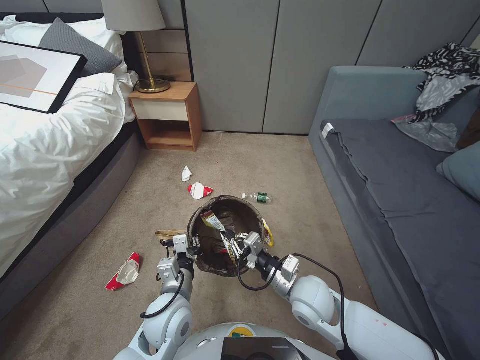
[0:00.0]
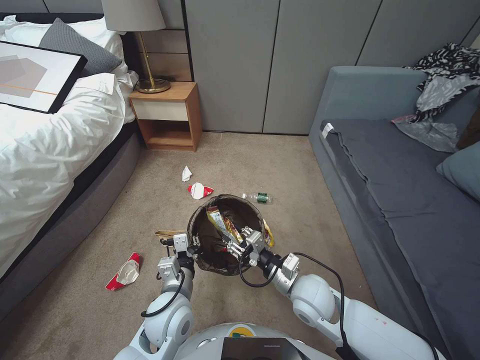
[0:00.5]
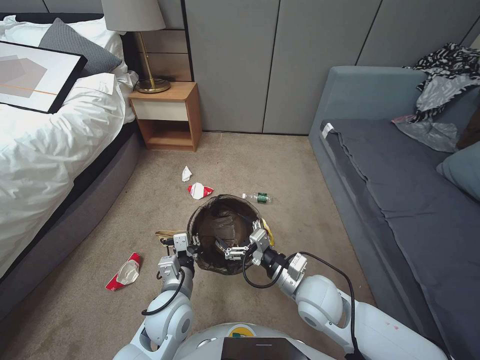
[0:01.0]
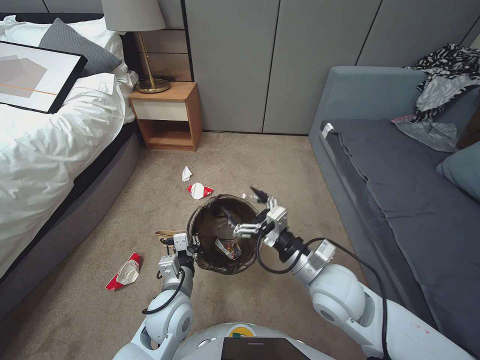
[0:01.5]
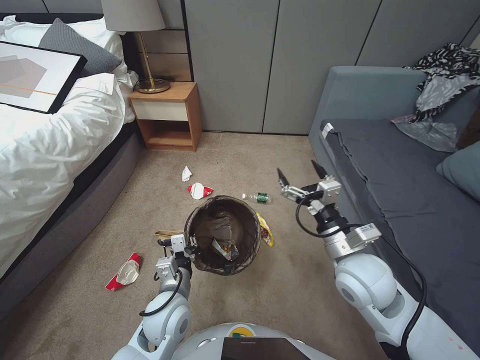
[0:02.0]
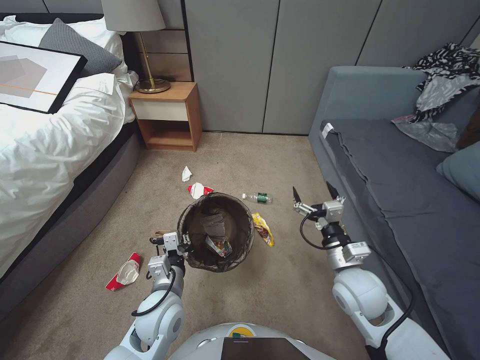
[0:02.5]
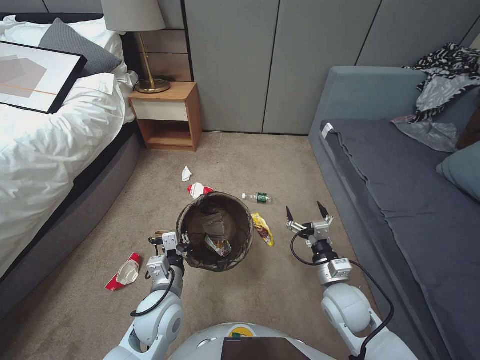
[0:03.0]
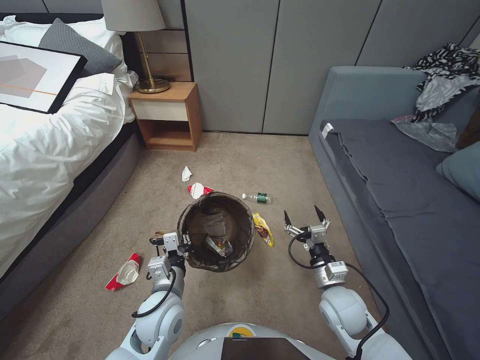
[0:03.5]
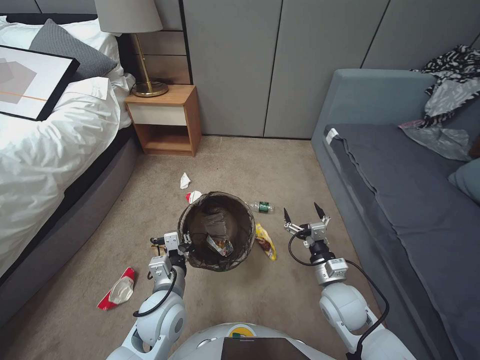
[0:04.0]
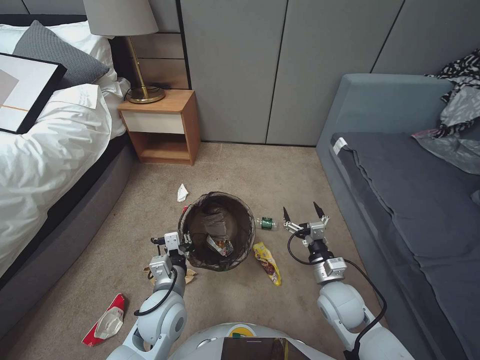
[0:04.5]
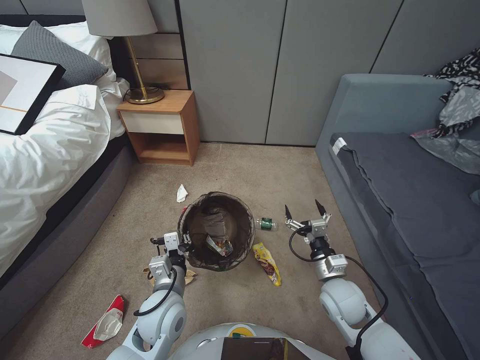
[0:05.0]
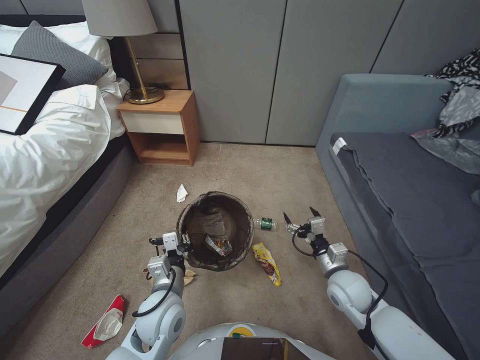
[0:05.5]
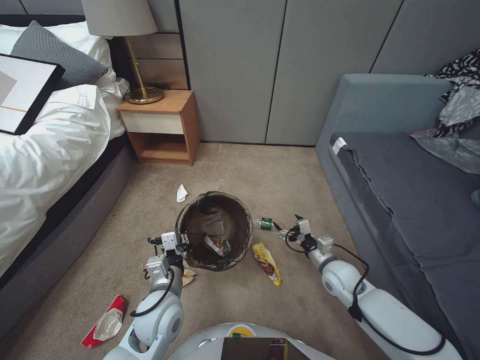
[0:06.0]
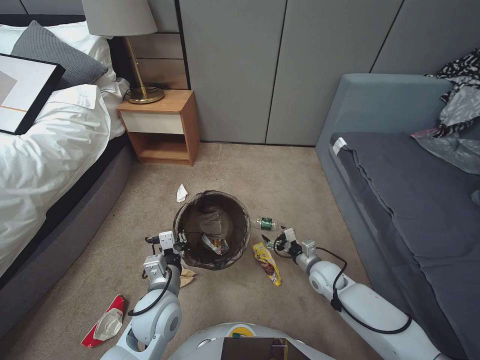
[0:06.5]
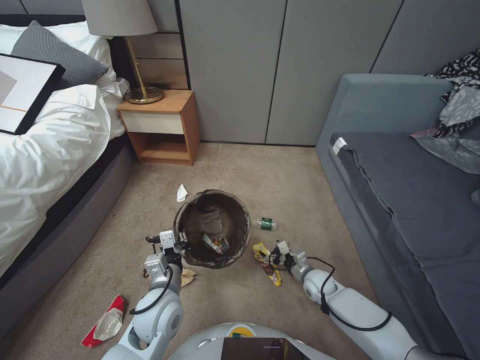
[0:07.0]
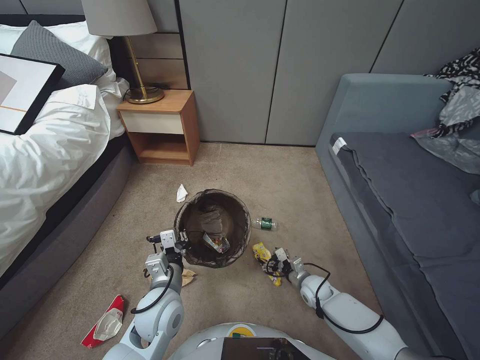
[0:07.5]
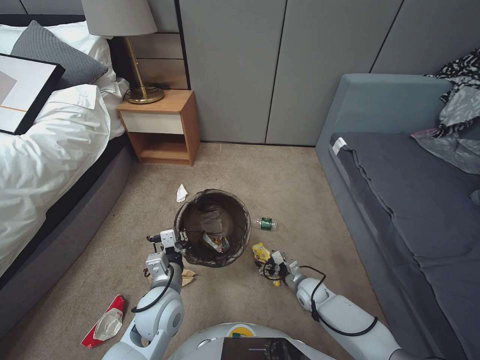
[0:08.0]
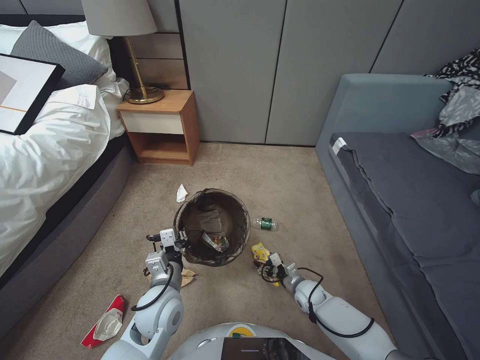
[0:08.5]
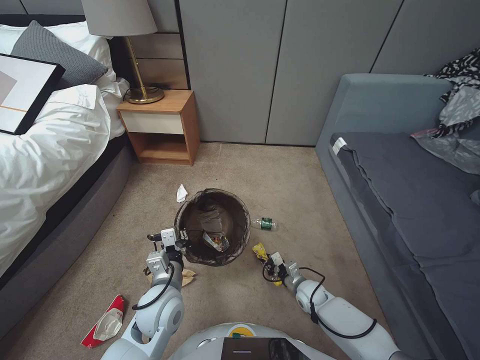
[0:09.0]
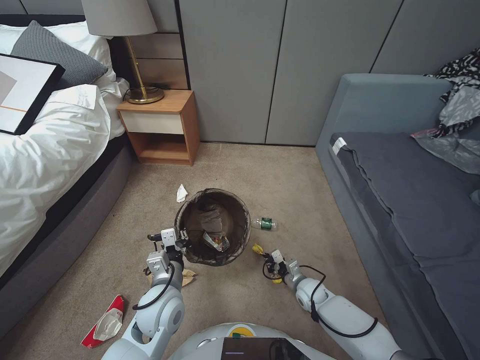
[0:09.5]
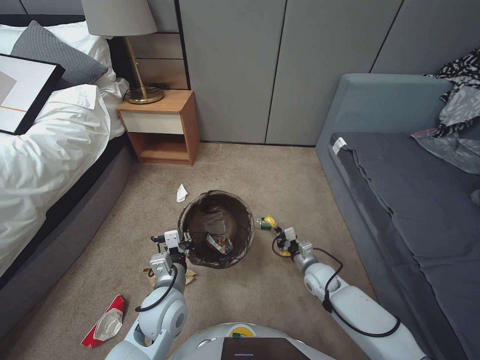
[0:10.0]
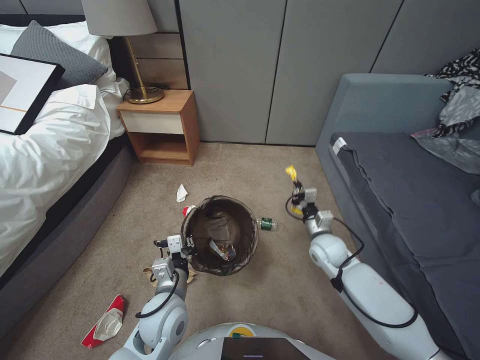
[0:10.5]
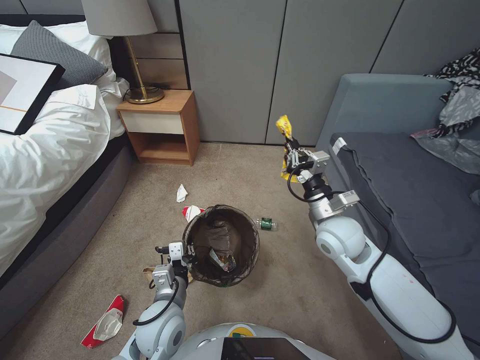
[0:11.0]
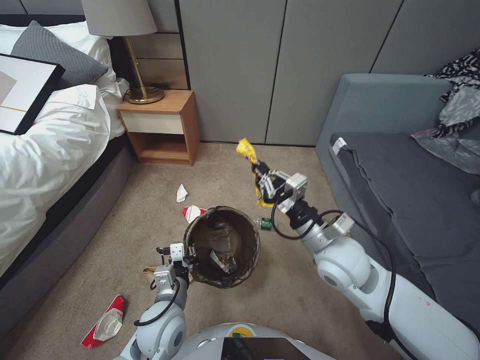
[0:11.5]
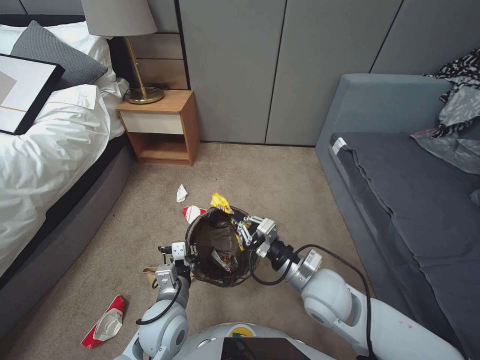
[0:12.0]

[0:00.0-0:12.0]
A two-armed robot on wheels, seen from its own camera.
Task of the whole recording: Pick up the trash bin, then pick up the garbage from the floor and place it into the trash bin.
0:00.0 to 0:02.0: The right gripper moves upward and to the right, about 10 cm, and opens up.
0:02.0 to 0:04.0: The right gripper is displaced downward by roughly 15 cm.
0:04.0 to 0:06.0: The right gripper heads forward, covering approximately 5 cm.
0:06.0 to 0:08.0: The right gripper shifts approximately 15 cm downward.
0:08.0 to 0:10.0: The right gripper shifts some 5 cm upward, and closes.
0:10.0 to 0:12.0: The right gripper is displaced upward and to the left by roughly 25 cm.

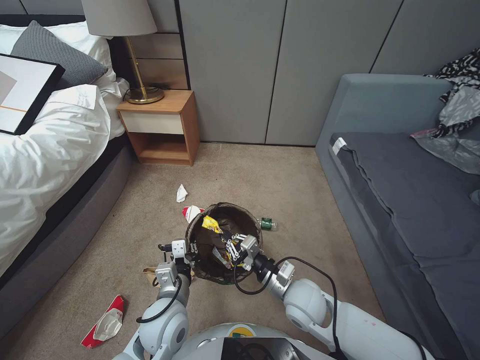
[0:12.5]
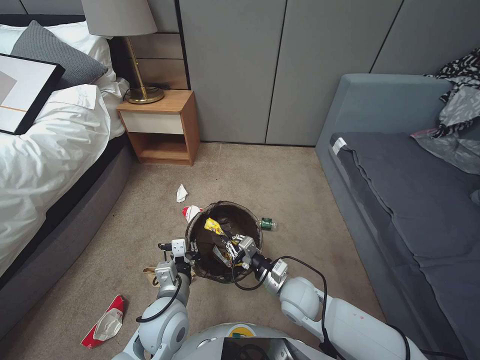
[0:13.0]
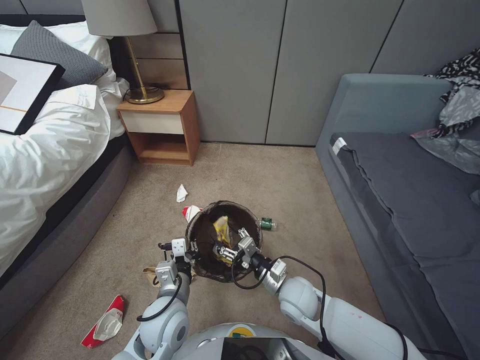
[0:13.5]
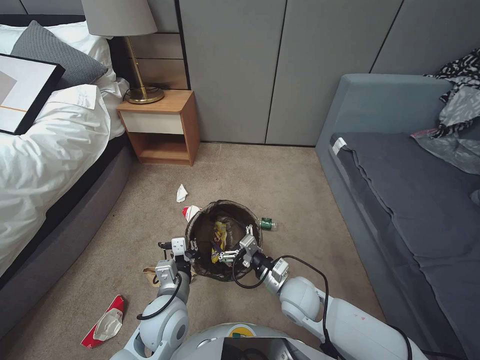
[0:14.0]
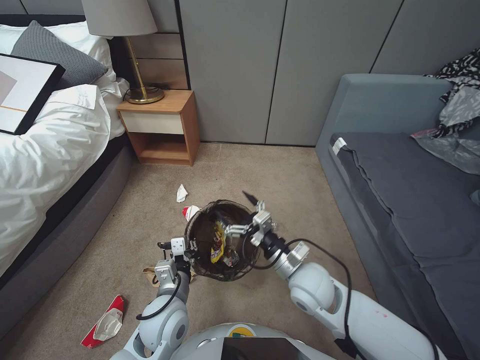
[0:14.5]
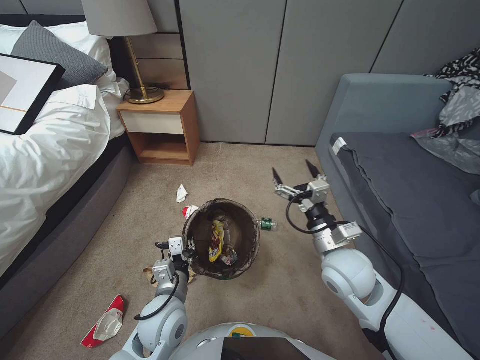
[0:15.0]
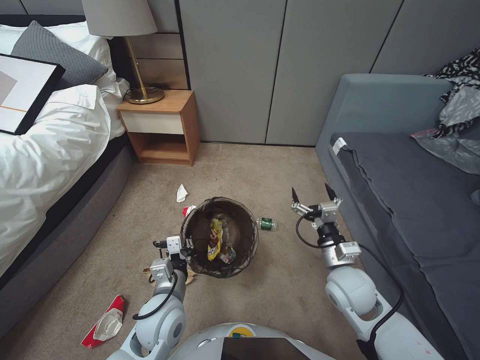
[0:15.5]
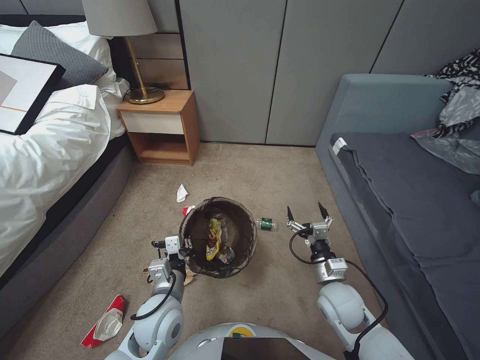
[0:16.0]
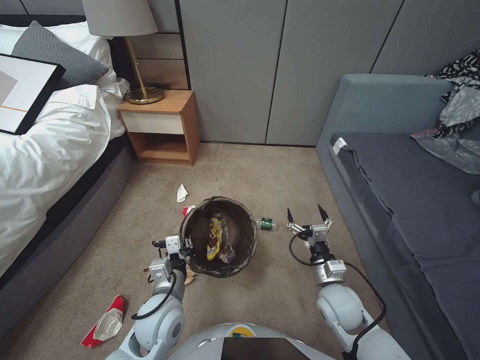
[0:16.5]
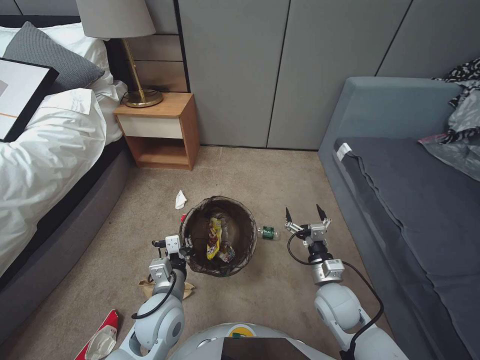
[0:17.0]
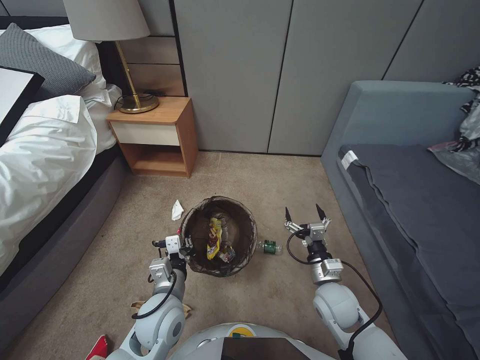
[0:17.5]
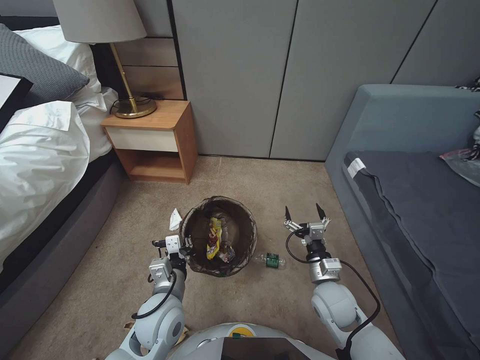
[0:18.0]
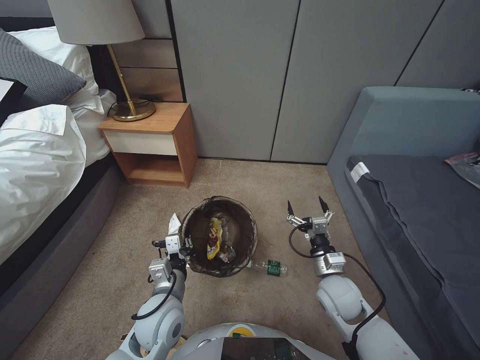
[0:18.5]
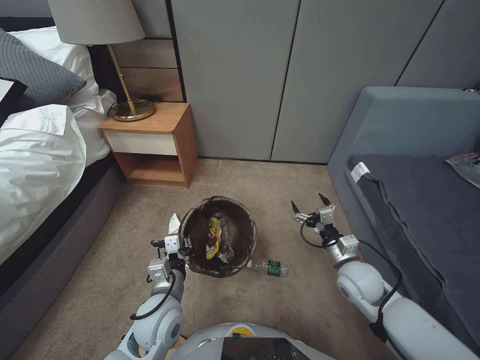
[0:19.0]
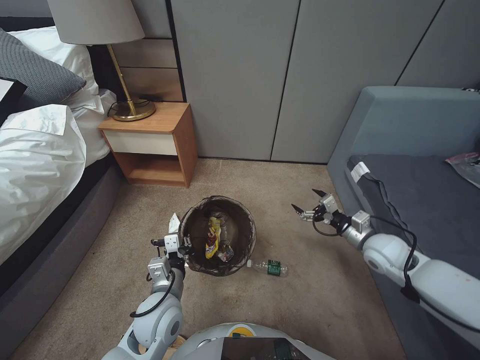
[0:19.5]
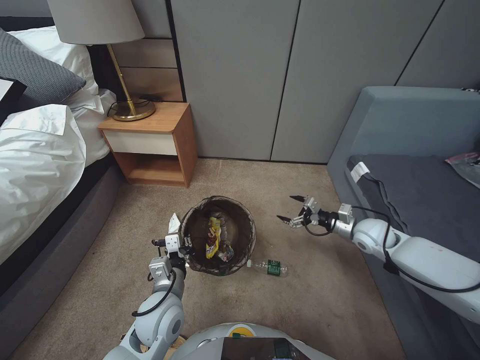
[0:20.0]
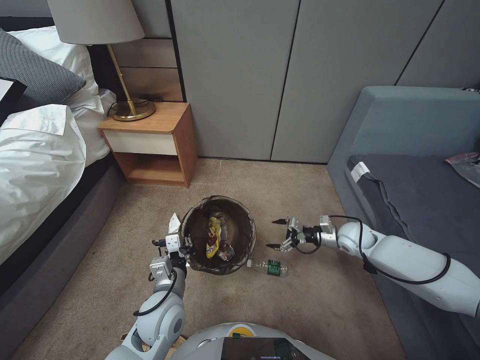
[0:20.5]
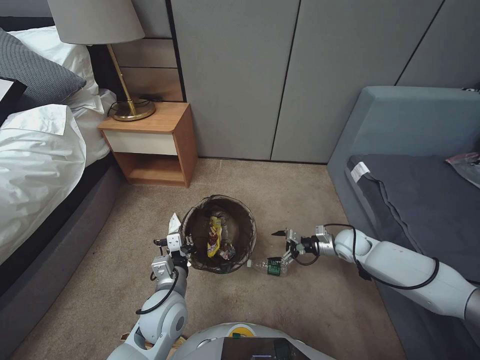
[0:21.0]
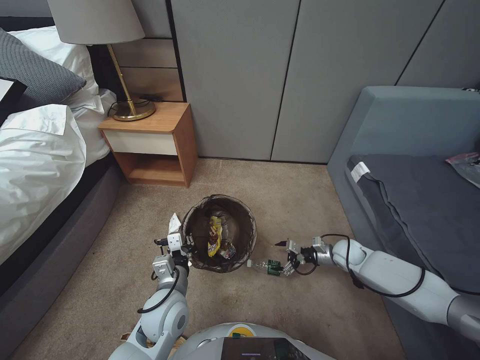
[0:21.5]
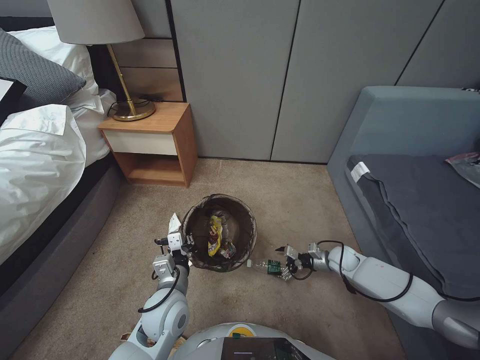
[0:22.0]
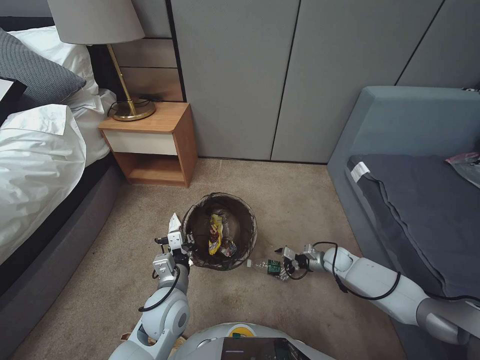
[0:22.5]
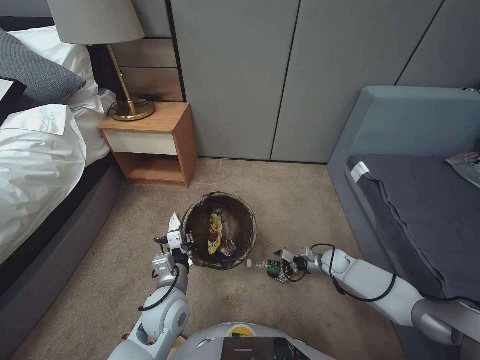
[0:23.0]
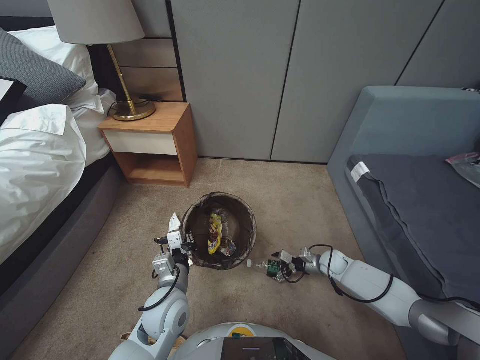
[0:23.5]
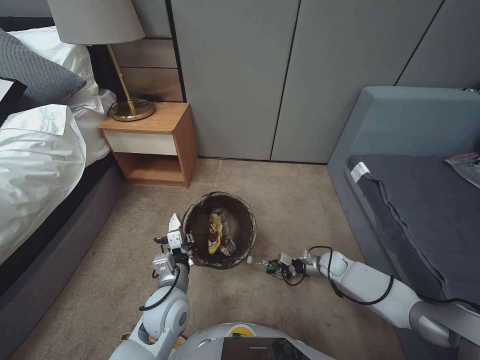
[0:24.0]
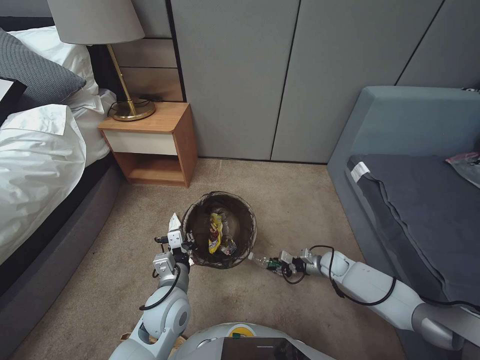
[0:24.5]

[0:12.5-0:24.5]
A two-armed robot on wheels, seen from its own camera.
Task of the whole recording: Pick up the trash bin, then pick up the garbage from the floor and place it into the trash bin.
0:12.5 to 0:14.5: The right gripper opens its fingers.
0:14.5 to 0:16.5: The right gripper goes about 10 cm to the right and downward.
0:18.5 to 0:20.5: The right gripper heads forward and to the right, covering some 20 cm.
0:20.5 to 0:22.5: The right gripper goes roughly 15 cm downward.
0:22.5 to 0:24.5: The right gripper closes its fingers.

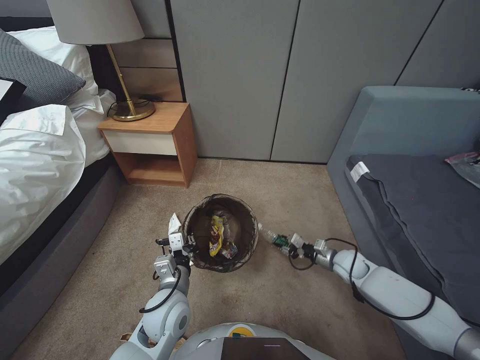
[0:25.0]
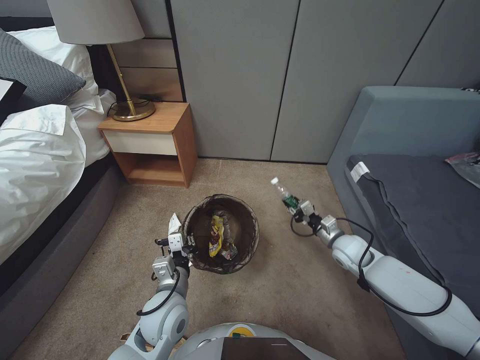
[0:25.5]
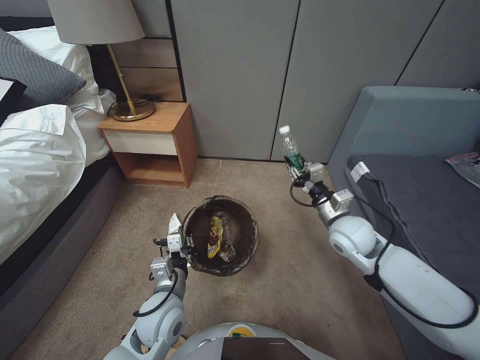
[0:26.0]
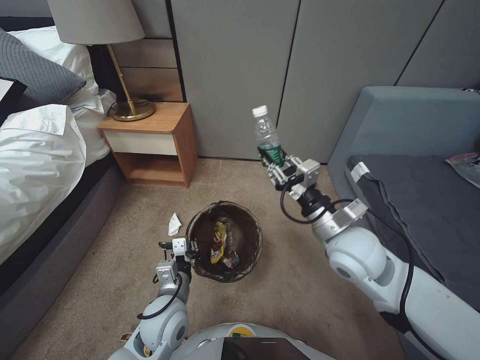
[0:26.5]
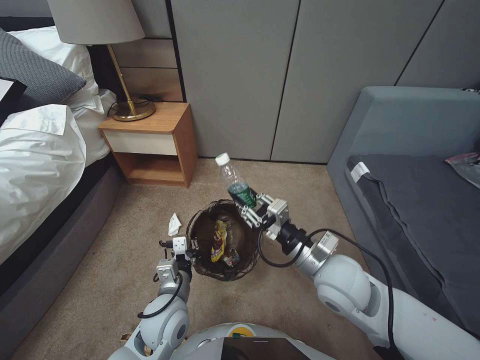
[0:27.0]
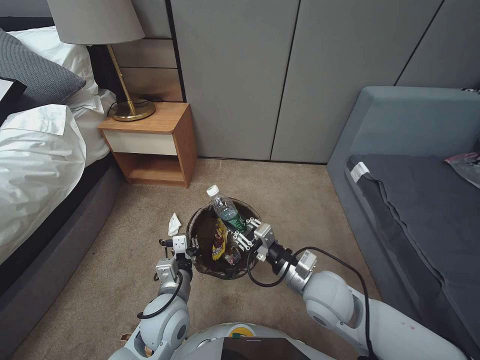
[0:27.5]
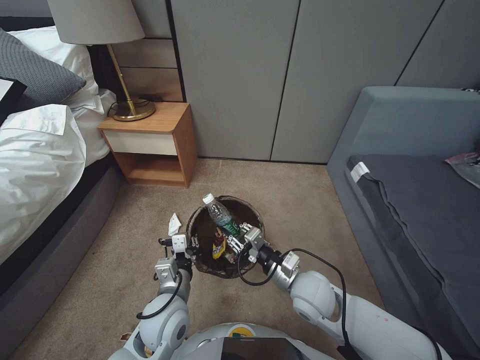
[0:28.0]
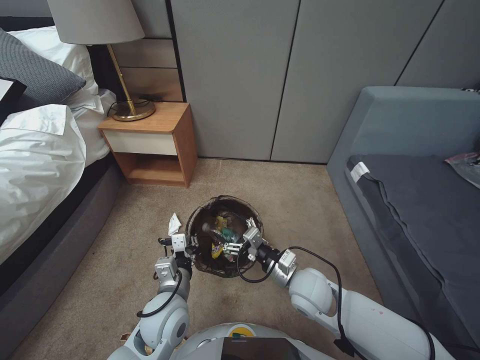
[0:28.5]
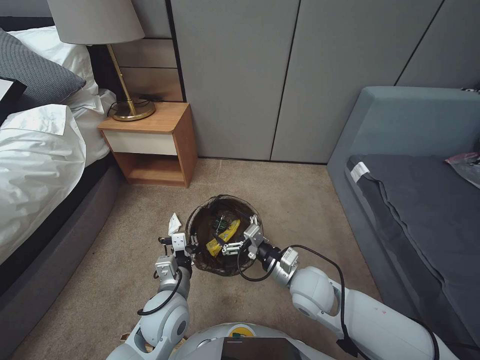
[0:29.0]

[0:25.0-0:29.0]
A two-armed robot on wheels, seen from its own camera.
Task of the whole recording: Pick up the trash bin, then pick up the garbage from the floor and place it into the trash bin.
0:25.0 to 0:27.0: The right gripper heads upward, to the left and backward, covering some 30 cm.
0:27.0 to 0:29.0: The right gripper heads downward, covering about 10 cm, and opens.
